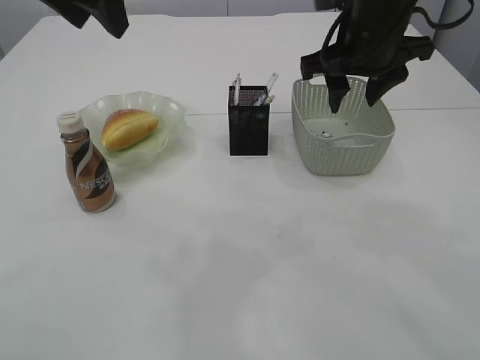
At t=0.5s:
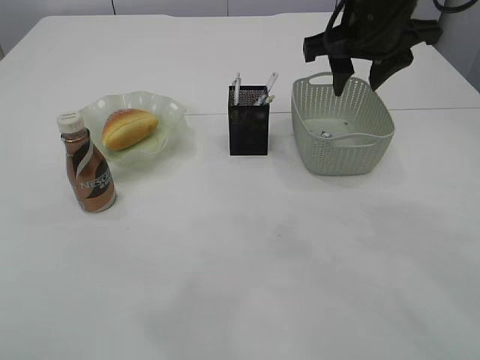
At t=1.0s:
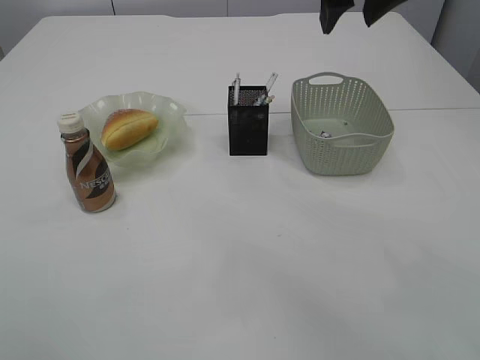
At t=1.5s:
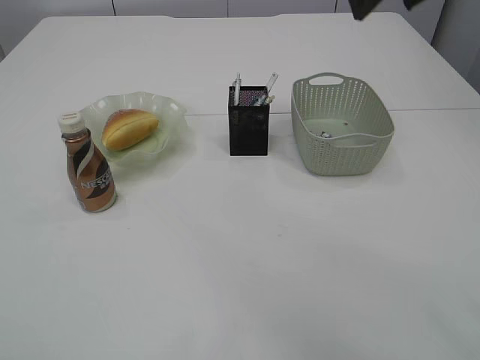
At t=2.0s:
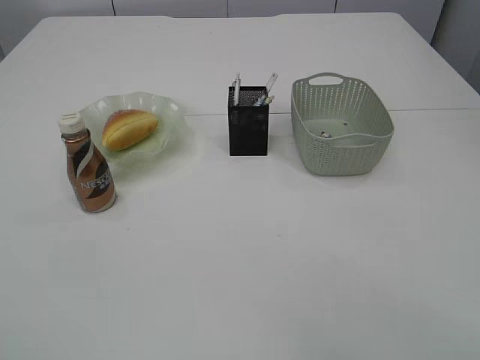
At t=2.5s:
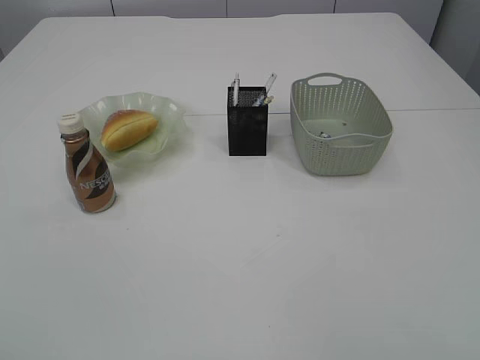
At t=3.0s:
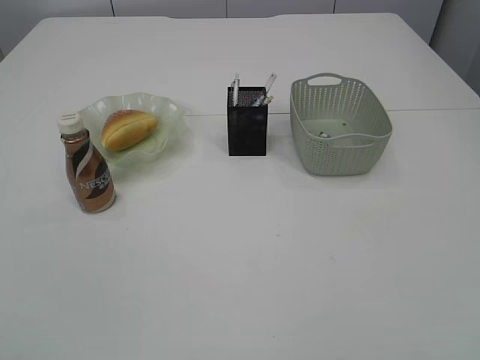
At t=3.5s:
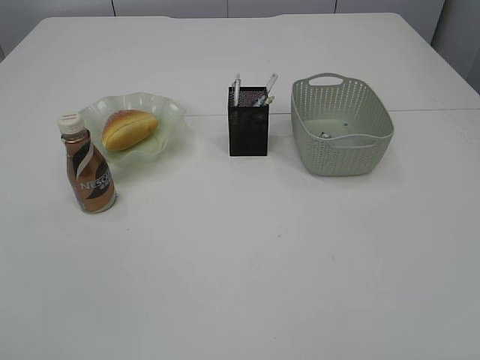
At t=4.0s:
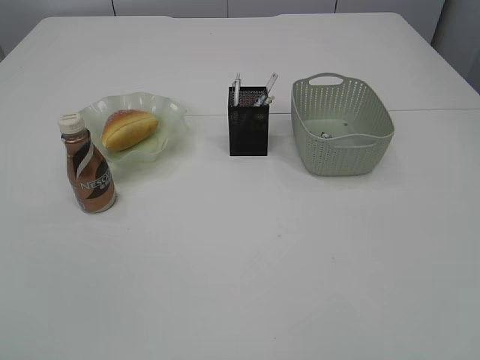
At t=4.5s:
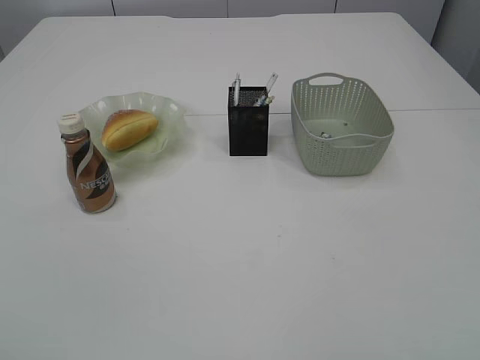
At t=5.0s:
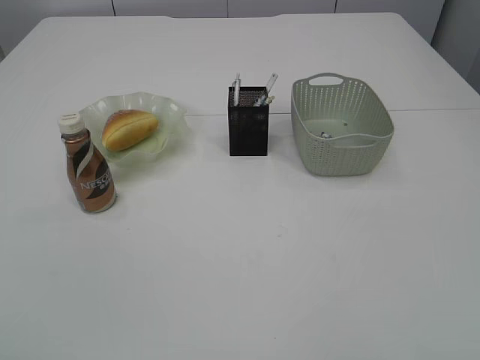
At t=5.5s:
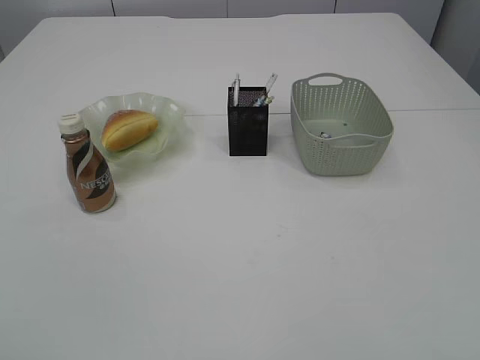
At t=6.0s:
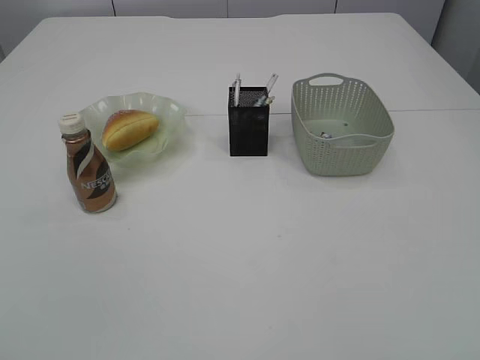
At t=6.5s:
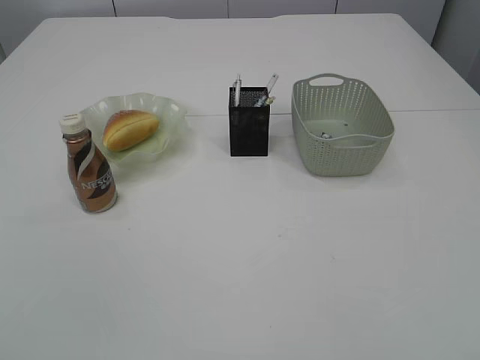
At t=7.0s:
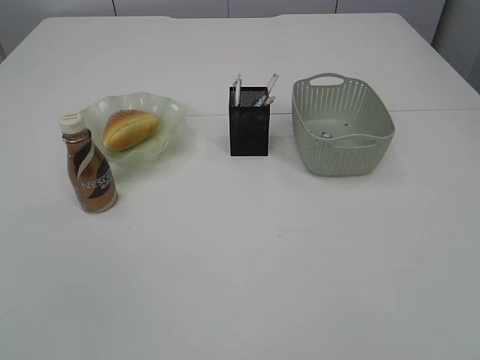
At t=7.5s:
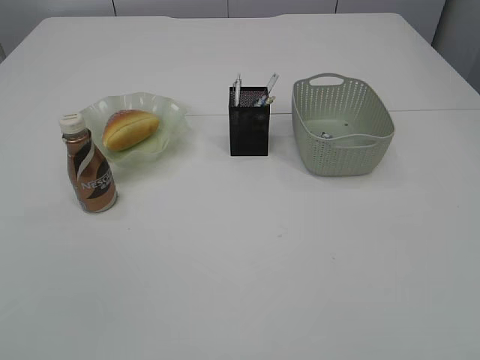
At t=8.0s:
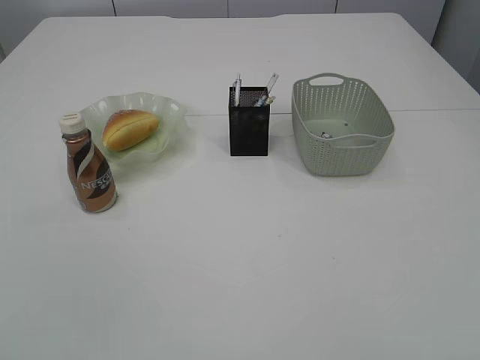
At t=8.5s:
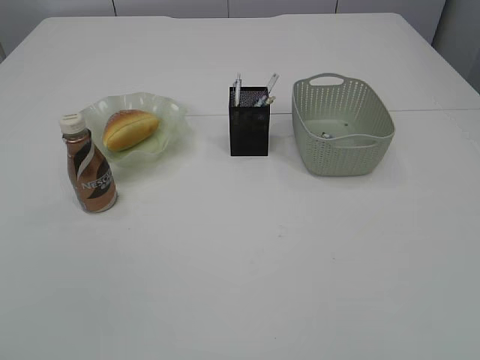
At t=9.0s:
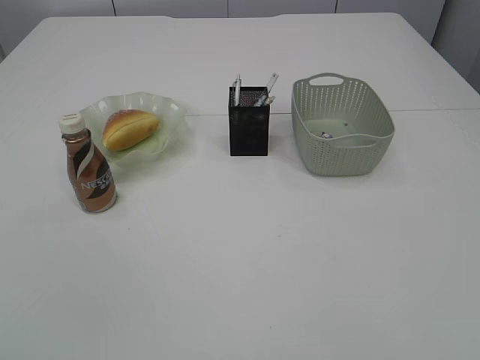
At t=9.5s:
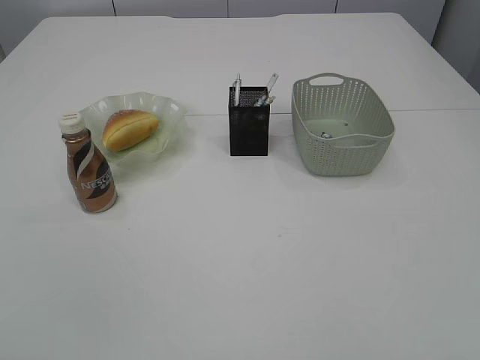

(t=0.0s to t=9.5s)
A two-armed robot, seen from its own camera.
t=0.0s - t=2.0s: The right gripper heads backward, covering some 25 cm, while the left gripper goes some 35 cm backward and to the left.

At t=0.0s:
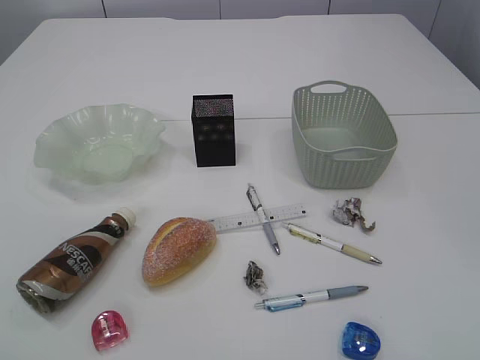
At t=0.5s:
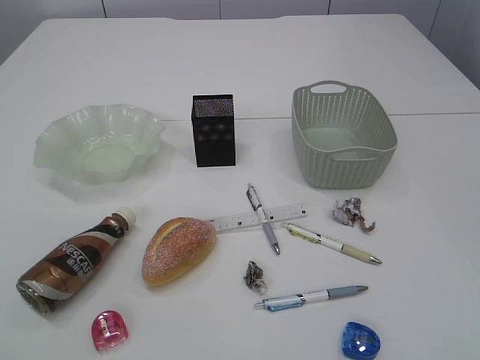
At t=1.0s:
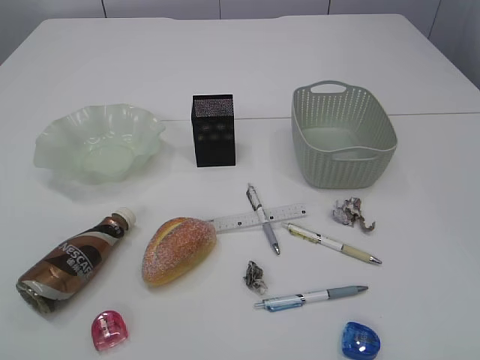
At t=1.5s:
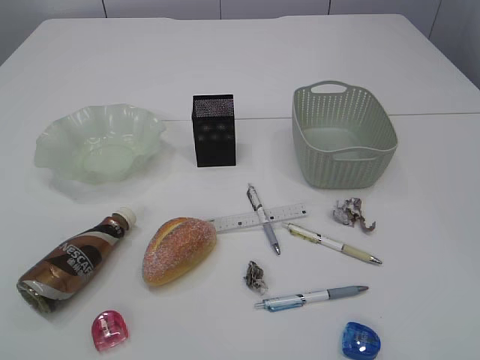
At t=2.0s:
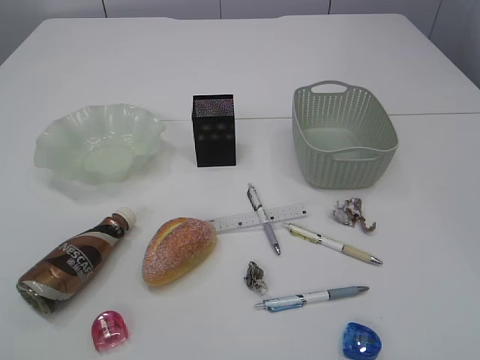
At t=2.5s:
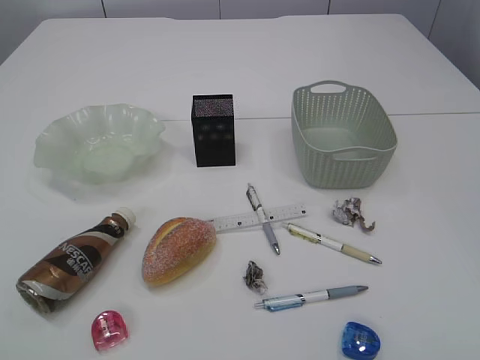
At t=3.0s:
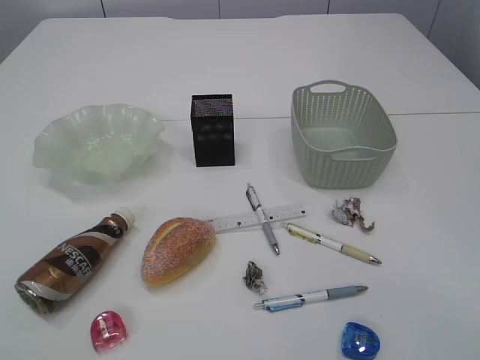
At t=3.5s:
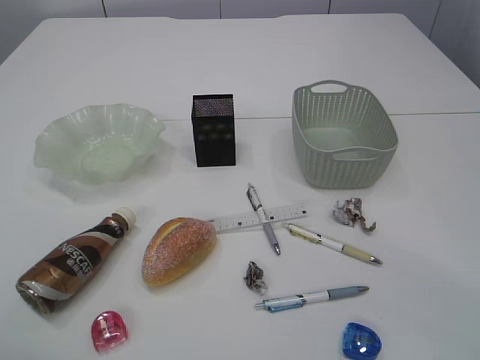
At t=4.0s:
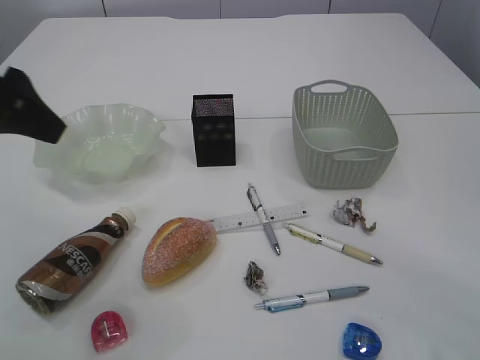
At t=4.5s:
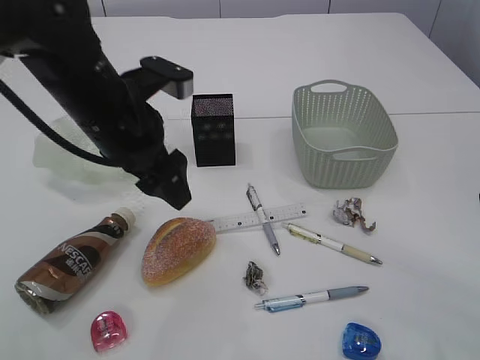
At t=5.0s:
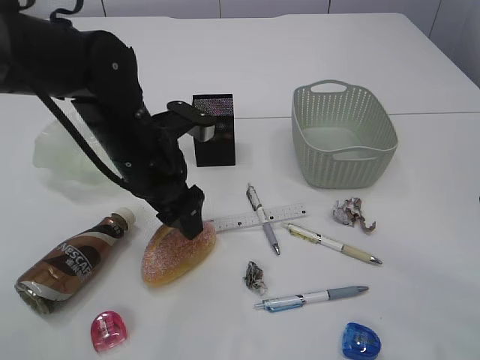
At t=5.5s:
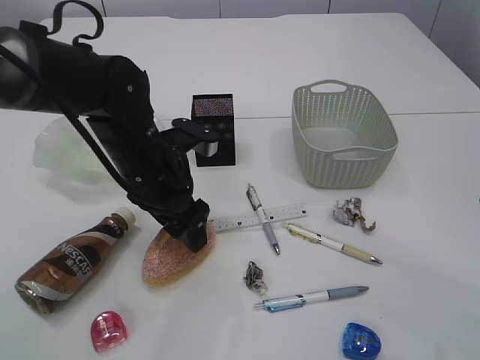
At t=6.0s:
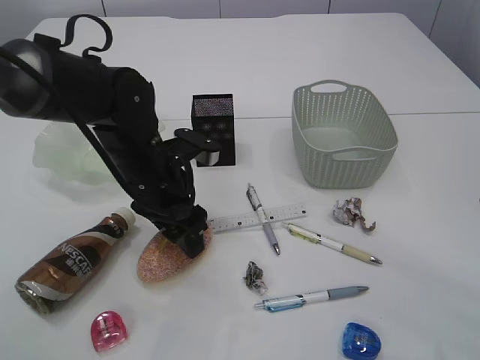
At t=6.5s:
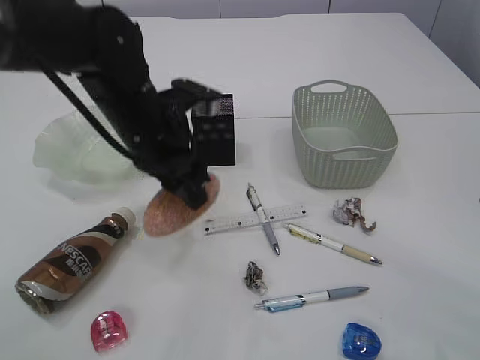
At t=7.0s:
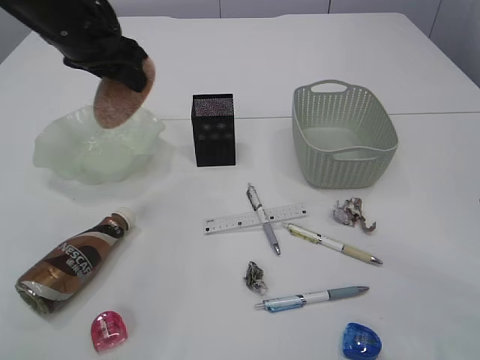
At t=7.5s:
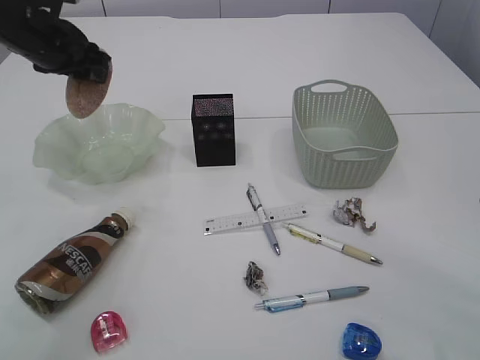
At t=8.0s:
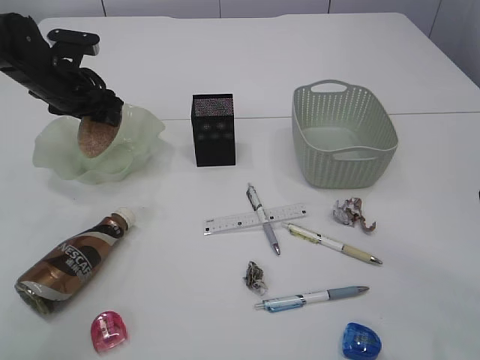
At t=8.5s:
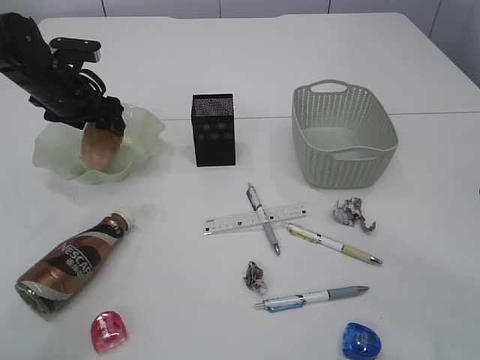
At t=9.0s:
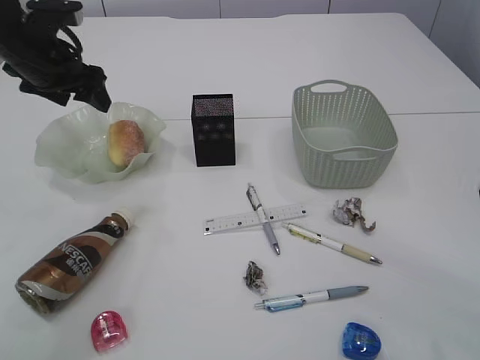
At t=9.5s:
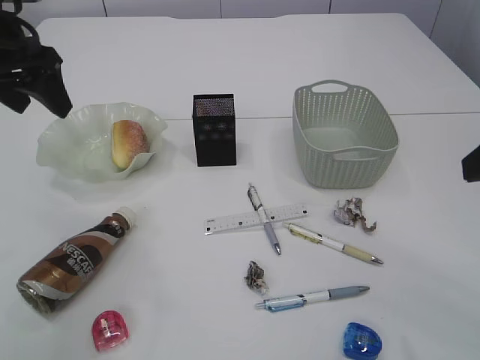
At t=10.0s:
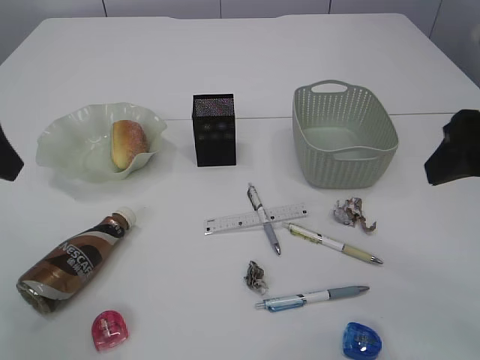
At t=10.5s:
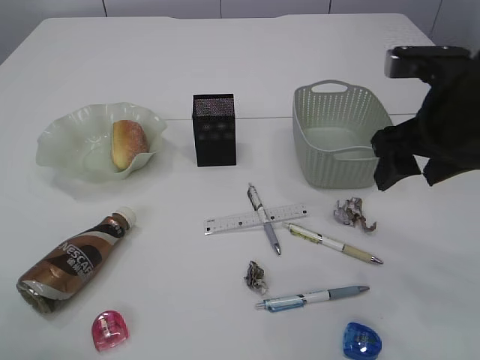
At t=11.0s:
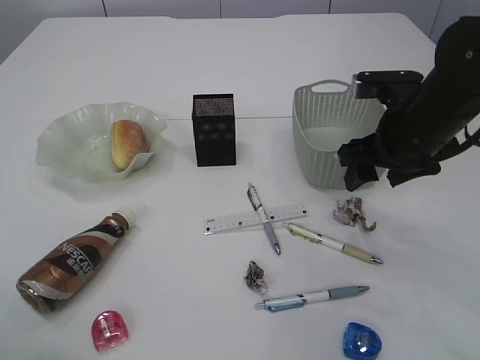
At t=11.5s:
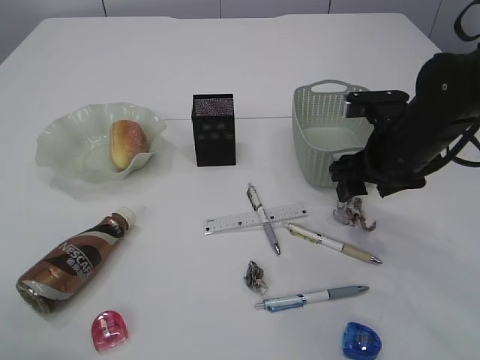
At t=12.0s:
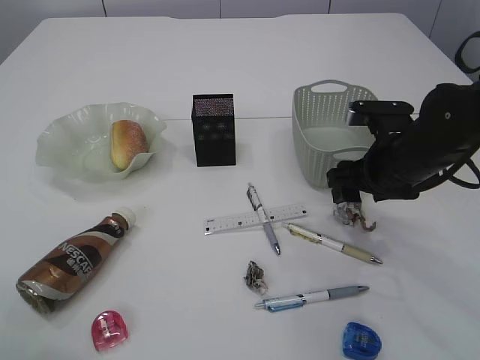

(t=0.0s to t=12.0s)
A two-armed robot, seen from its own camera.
Step, t=7.0s - t=8.5s: place the bread in the plate.
t=2.0s - t=4.0s: The left gripper travels forward by about 30 cm.
t=4.0s - t=6.0s: The left gripper goes roughly 20 cm downward and to the right, and opens, then closes once more.
t=6.0s - t=8.0s: The left gripper travels to the left and forward by some 20 cm.
t=8.0s - t=10.0s: The left gripper shifts roughly 25 cm backward and upward. The right gripper moves some 5 cm.
t=10.0s - t=12.0s: The right gripper goes about 20 cm downward and forward.

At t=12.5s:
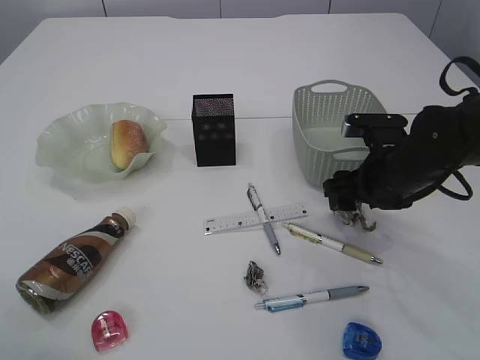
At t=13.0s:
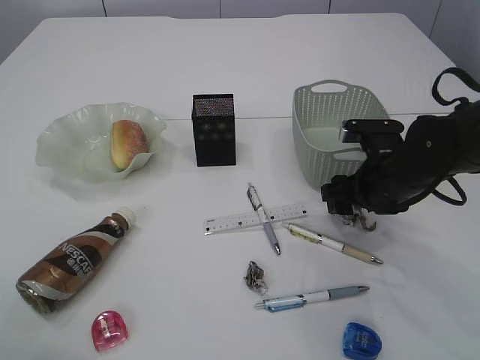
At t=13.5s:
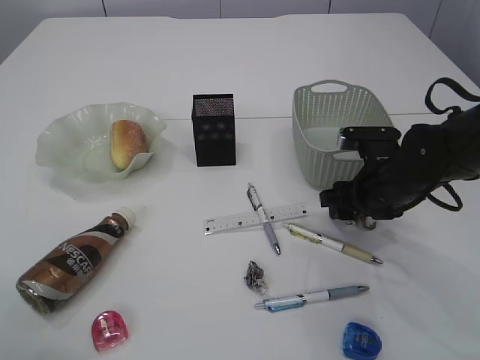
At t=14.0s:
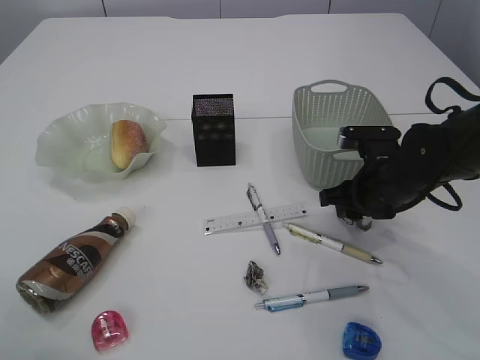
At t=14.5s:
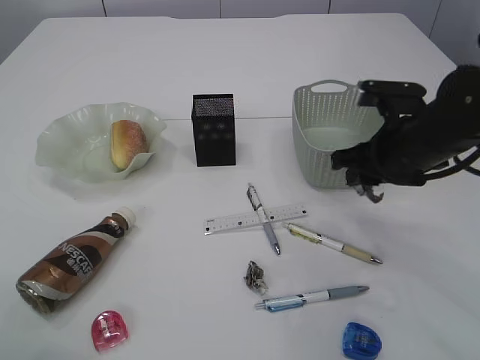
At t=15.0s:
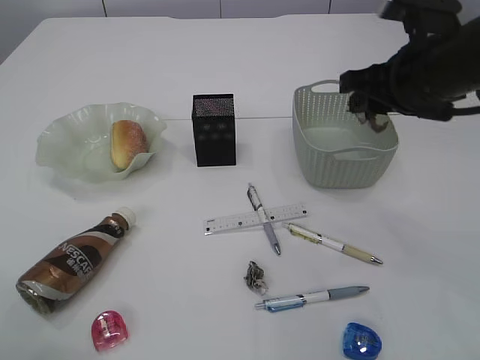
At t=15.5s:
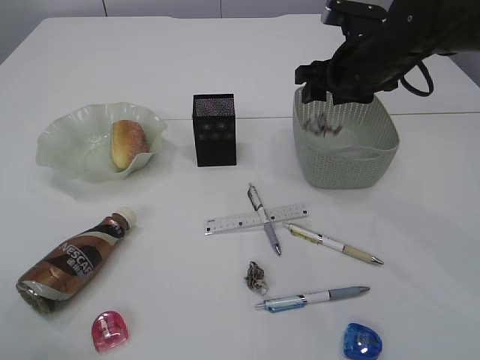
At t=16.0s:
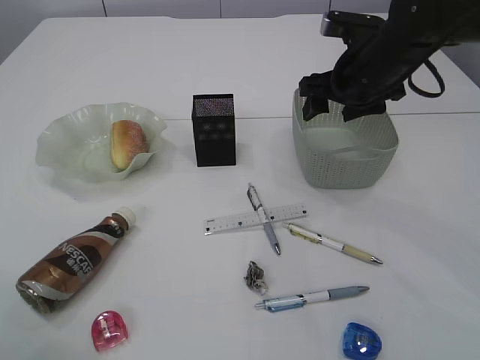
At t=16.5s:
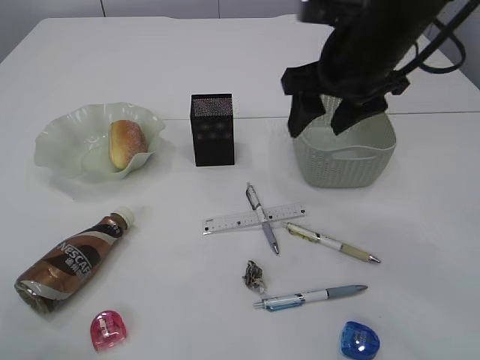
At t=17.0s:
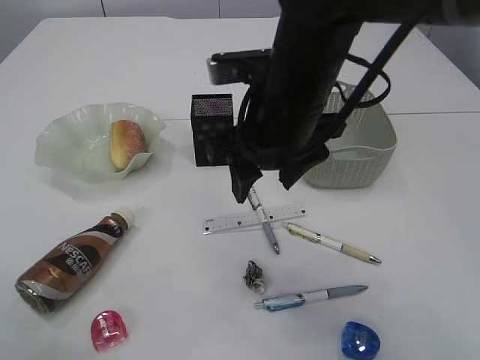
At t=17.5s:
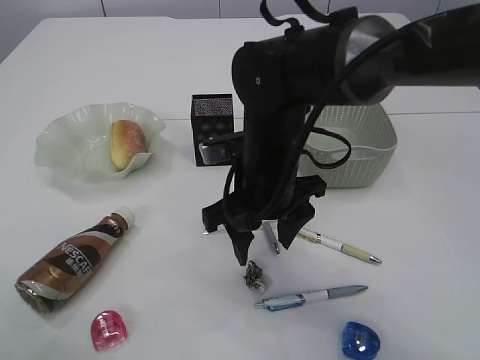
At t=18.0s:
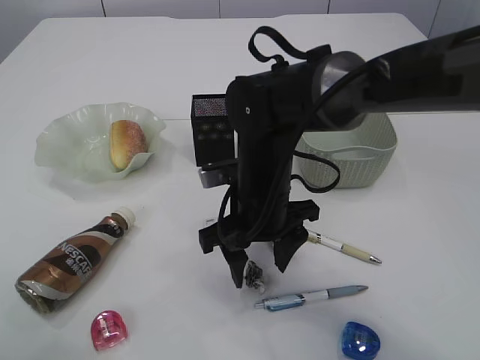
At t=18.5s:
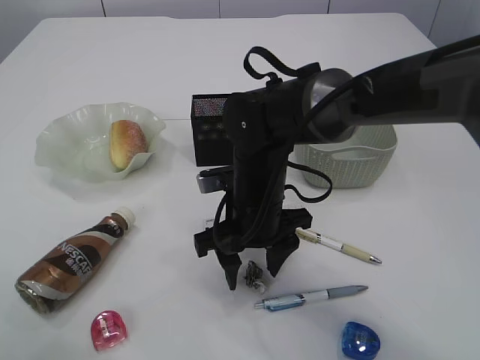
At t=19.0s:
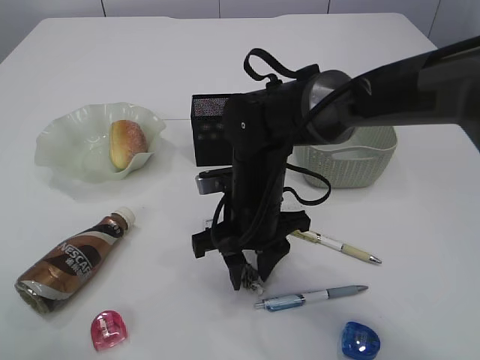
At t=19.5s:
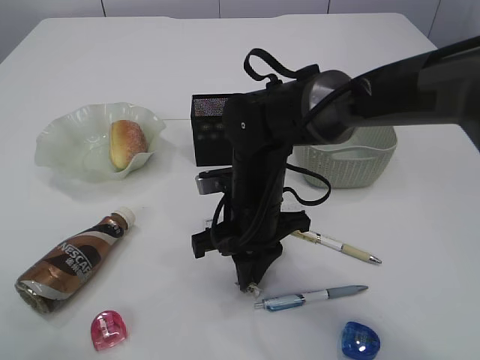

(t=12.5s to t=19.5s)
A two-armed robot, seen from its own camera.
Step, t=12.5s - t=14.5s: Pick up the waste paper.
Step, t=15.0s - t=16.0s: Place the waste paper in the basket.
t=12.5s - t=14.5s: The right gripper moves upward, roughly 5 cm, and closes.
t=14.5s - t=16.0s: The right gripper travels forward and upward by about 10 cm, and opens its fingers.
t=16.0s - t=17.5s: The right gripper is displaced to the left and backward by roughly 20 cm.
t=17.5s - t=19.5s: The right gripper is displaced downward by some 5 cm, and closes up.
